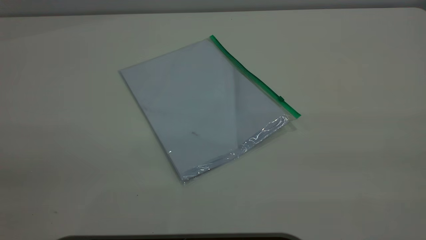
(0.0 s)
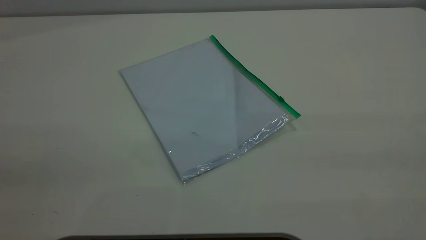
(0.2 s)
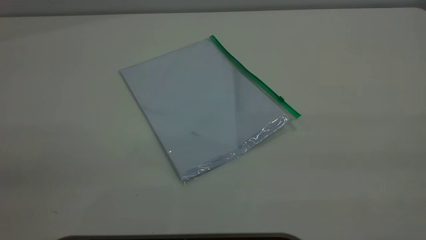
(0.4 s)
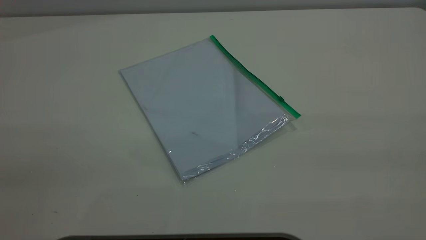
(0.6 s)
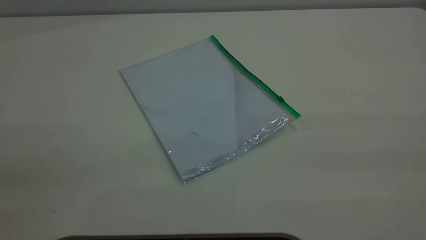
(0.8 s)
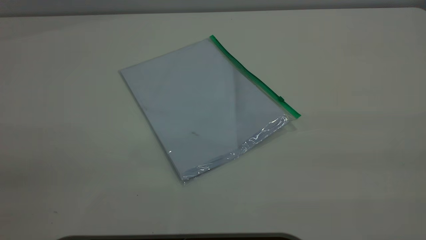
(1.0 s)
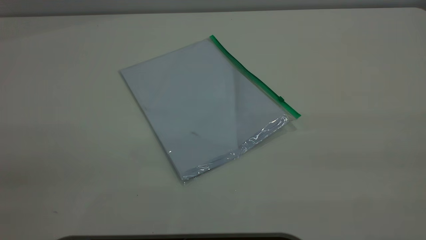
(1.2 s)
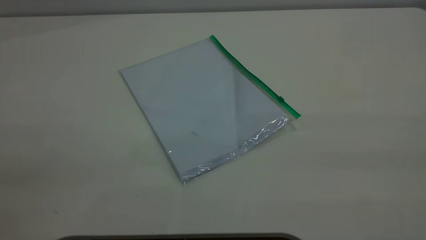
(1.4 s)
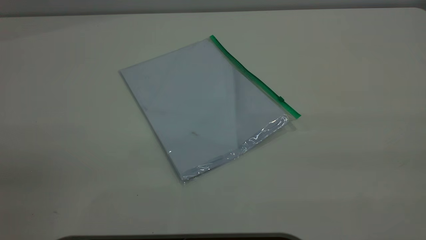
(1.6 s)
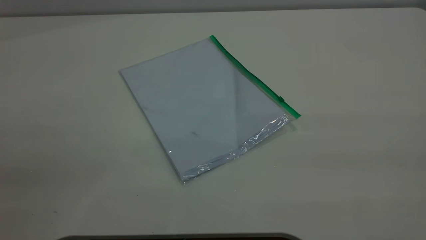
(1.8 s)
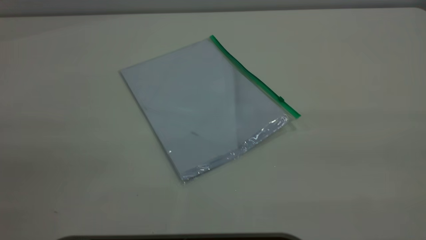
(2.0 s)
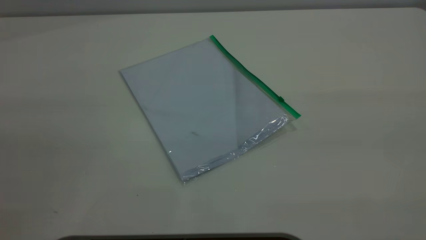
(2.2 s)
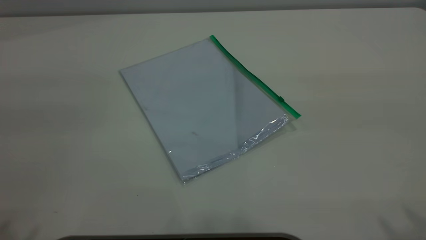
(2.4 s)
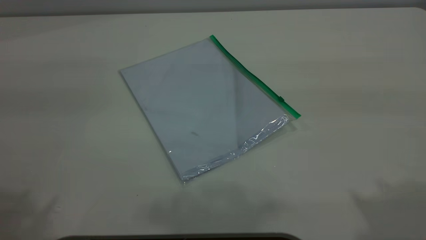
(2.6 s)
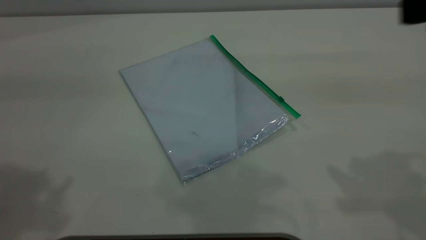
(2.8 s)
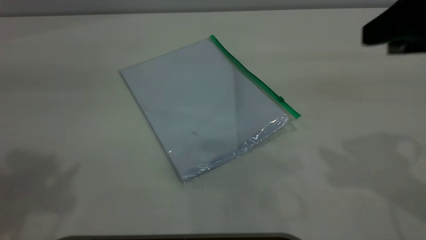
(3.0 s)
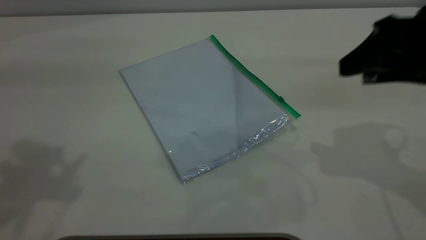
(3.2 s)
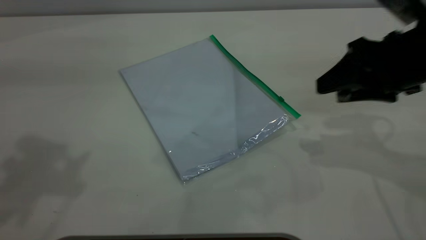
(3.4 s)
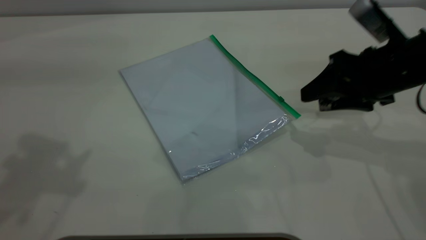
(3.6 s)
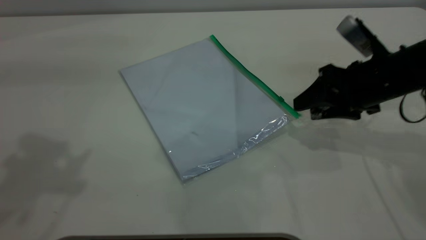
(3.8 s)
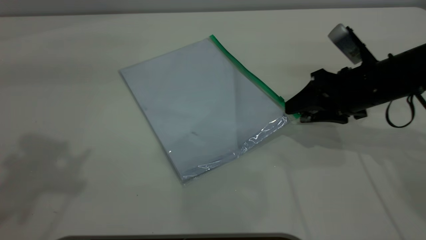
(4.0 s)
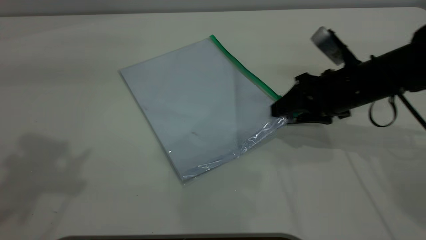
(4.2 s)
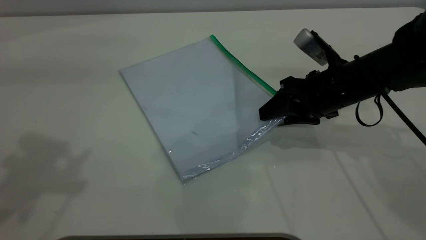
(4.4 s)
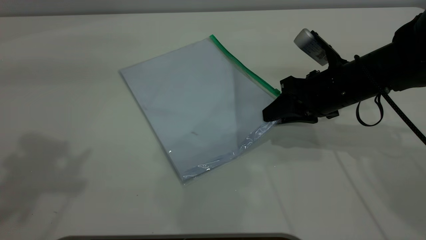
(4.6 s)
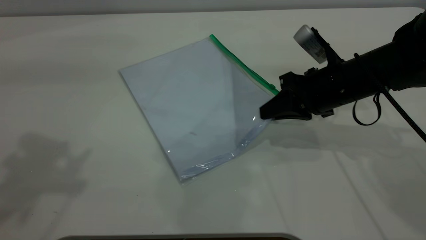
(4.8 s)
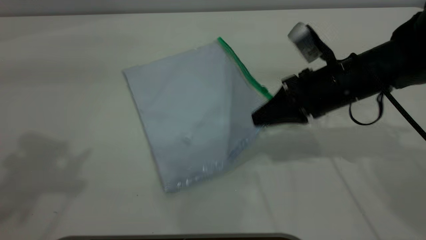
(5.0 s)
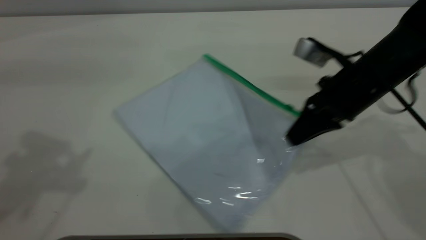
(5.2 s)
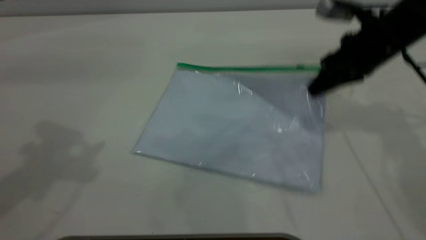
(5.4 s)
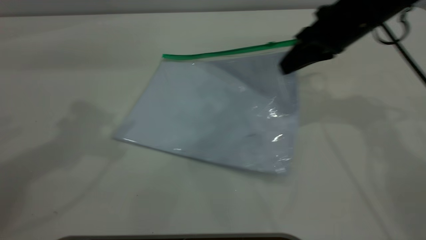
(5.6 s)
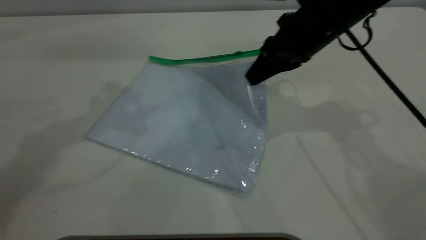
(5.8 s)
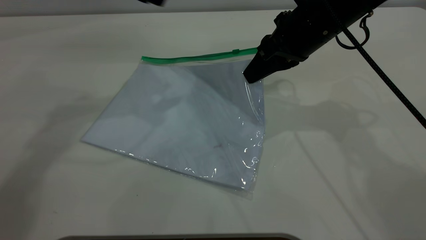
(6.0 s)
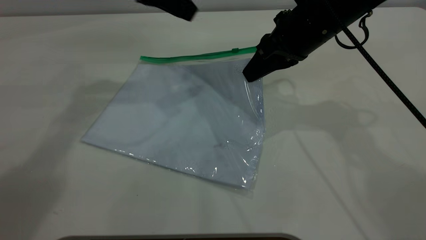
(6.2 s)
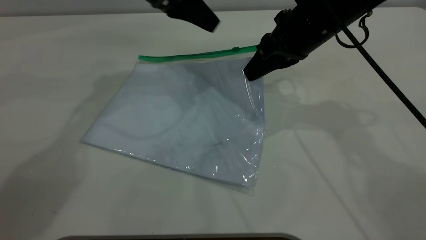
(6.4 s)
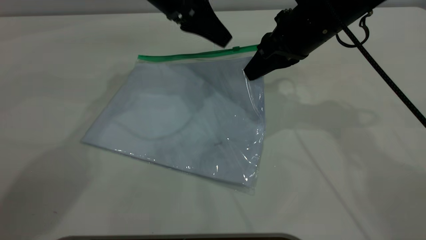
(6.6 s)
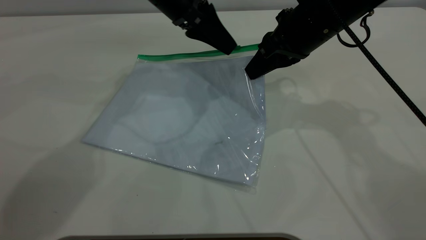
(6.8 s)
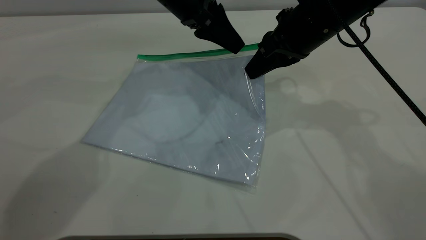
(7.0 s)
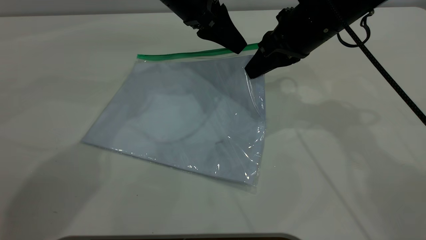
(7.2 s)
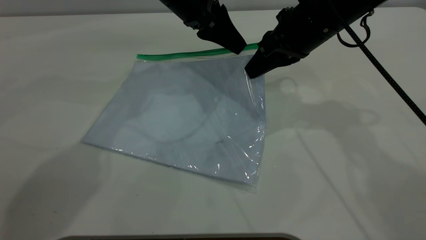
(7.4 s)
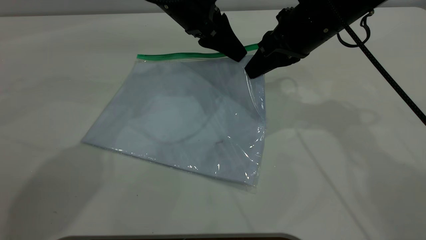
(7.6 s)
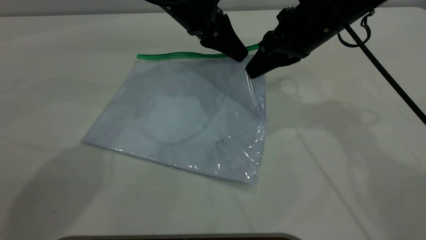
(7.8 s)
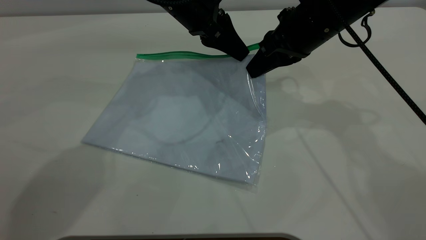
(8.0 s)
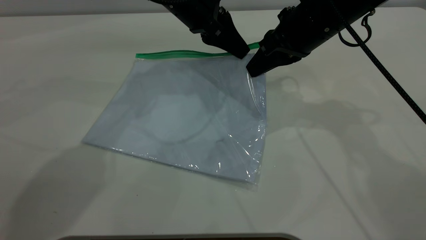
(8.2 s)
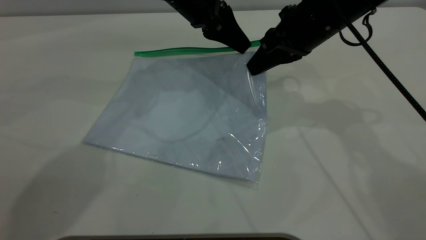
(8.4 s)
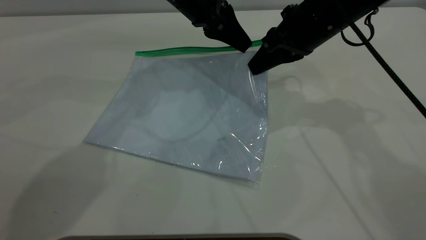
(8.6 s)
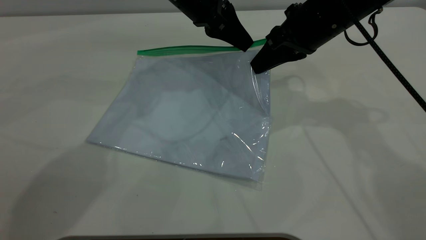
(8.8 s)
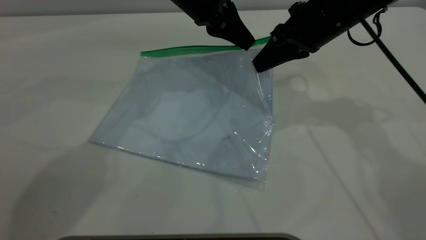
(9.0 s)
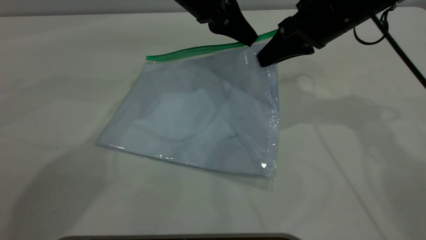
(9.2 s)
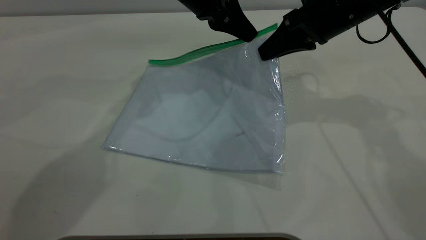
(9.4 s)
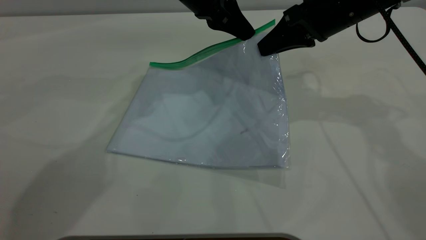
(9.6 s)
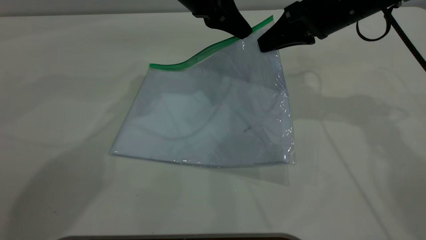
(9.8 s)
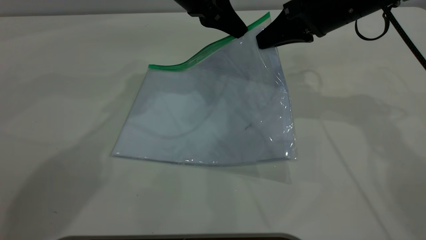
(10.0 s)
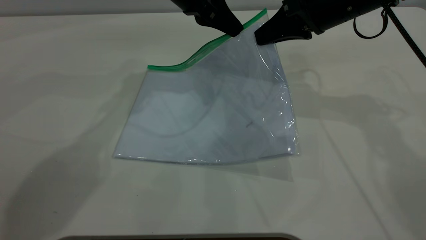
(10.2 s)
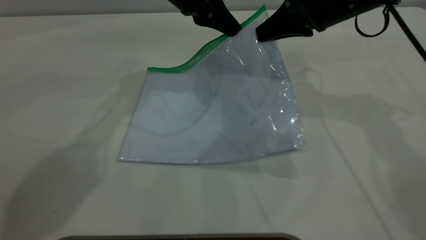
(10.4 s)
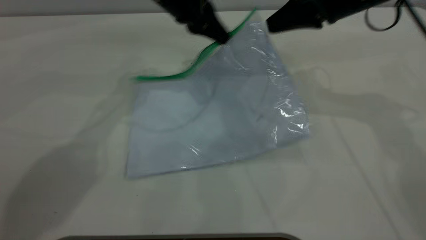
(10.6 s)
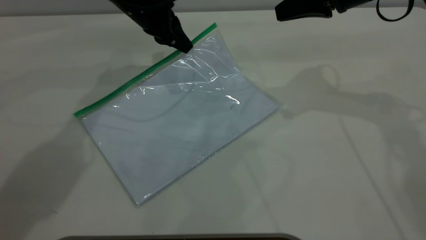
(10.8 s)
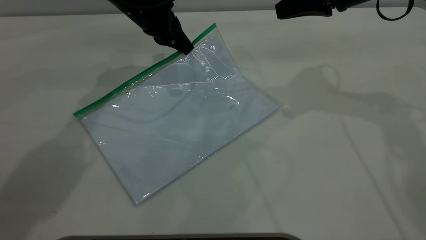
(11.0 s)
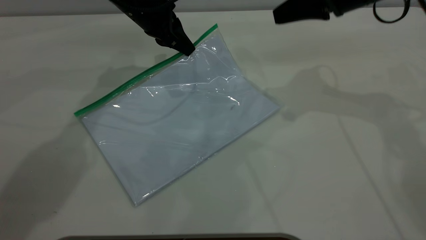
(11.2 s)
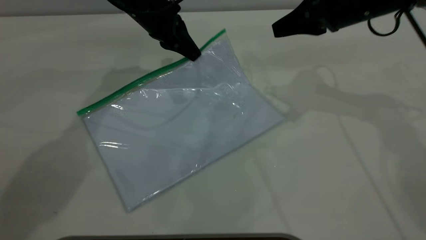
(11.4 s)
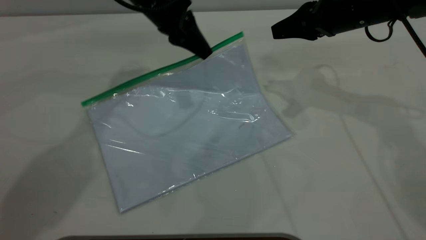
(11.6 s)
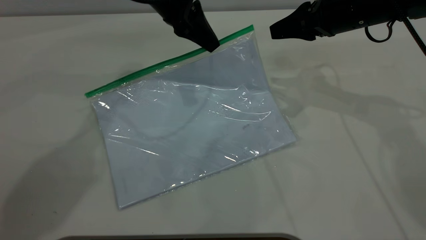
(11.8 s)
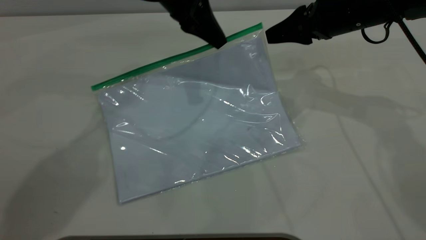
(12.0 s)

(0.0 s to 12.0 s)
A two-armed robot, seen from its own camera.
Step, 0.0 s - 4.8 s: Pick up the transparent plastic bag with the right gripper.
0.0 s - 1.6 s: The two grippers keep their place.
1.6 s - 3.0 s: The right gripper shifts some 25 cm forward and downward, and opens its fingers.
3.0 s - 4.4 s: The right gripper goes about 20 cm downward and forward.
4.4 s - 6.0 s: The left gripper is displaced forward, to the right and downward by roughly 20 cm; the right gripper heads upward and to the left, covering some 10 cm, and closes its fingers.
6.0 s - 7.6 s: The left gripper heads to the right and downward, covering approximately 15 cm.
7.6 s - 9.0 s: The left gripper closes.
9.0 s - 10.4 s: There are only small adjustments of the grippers.
10.4 s - 12.0 s: The right gripper opens its fingers.

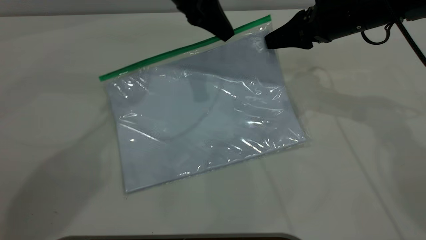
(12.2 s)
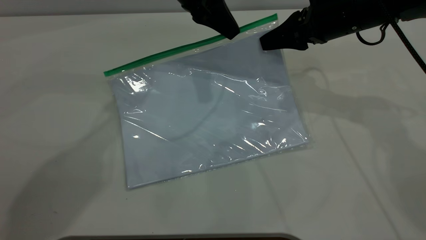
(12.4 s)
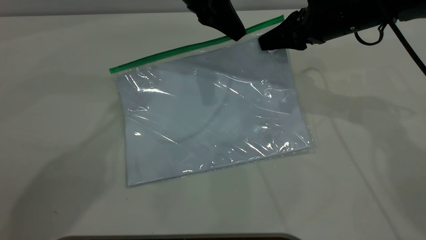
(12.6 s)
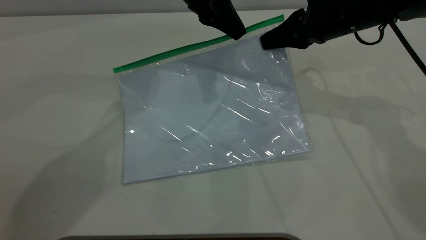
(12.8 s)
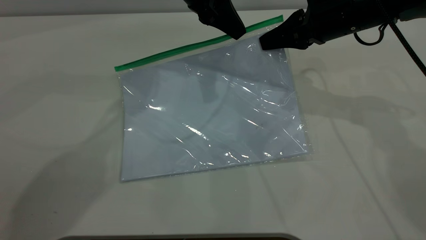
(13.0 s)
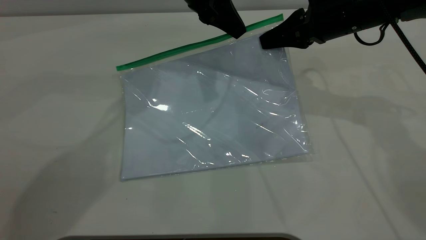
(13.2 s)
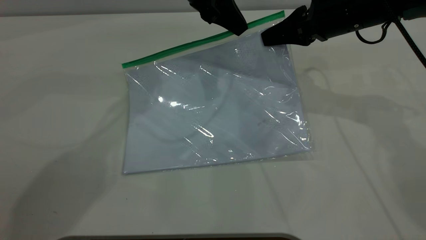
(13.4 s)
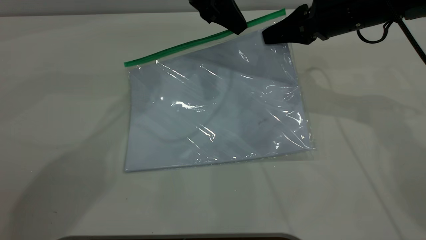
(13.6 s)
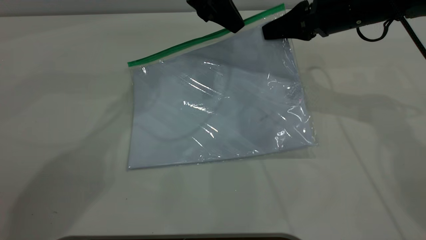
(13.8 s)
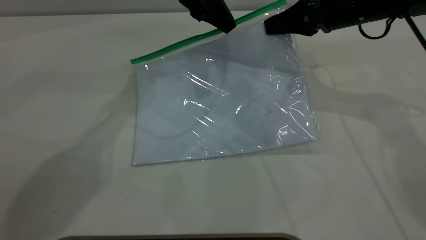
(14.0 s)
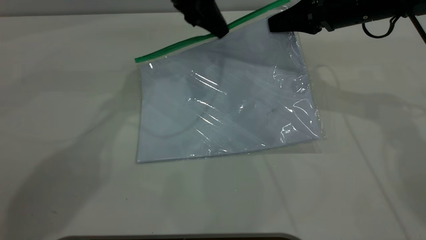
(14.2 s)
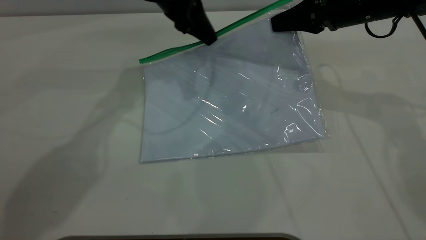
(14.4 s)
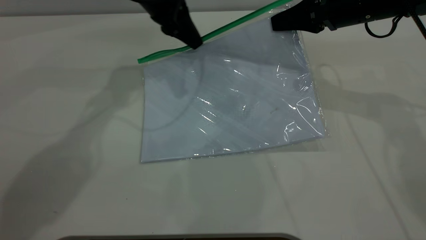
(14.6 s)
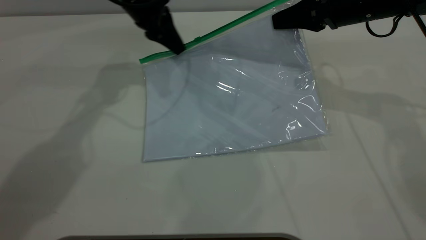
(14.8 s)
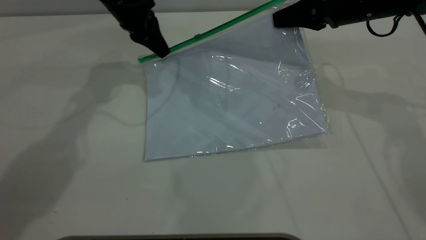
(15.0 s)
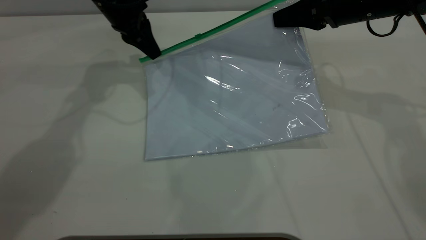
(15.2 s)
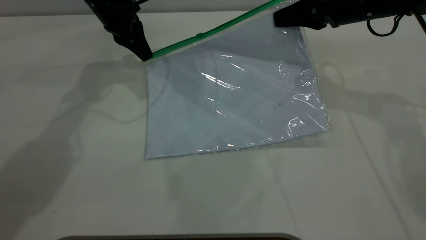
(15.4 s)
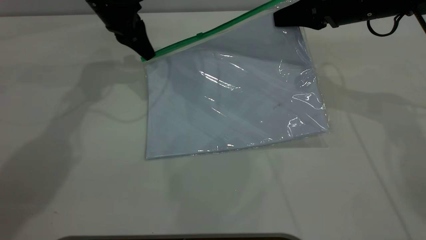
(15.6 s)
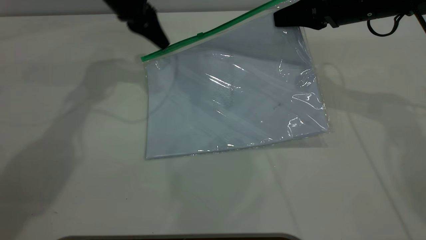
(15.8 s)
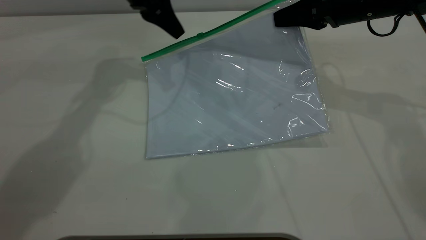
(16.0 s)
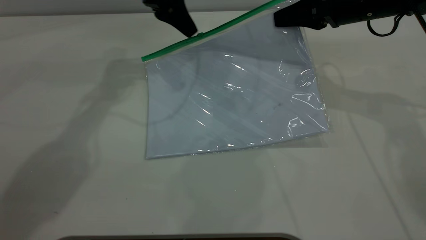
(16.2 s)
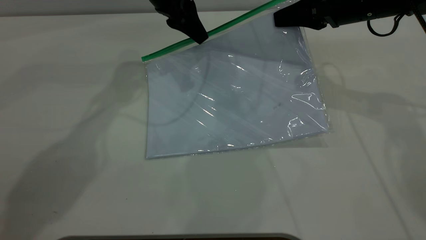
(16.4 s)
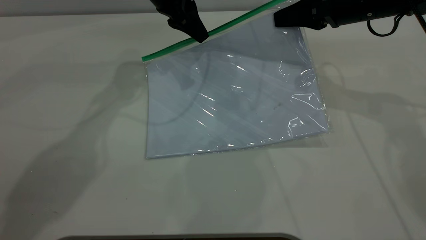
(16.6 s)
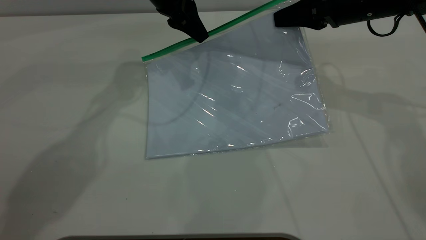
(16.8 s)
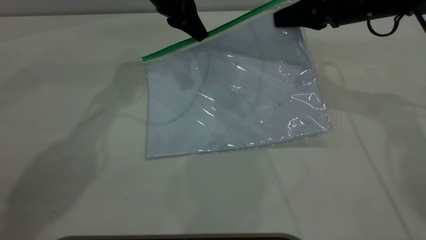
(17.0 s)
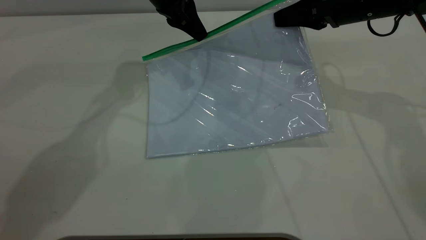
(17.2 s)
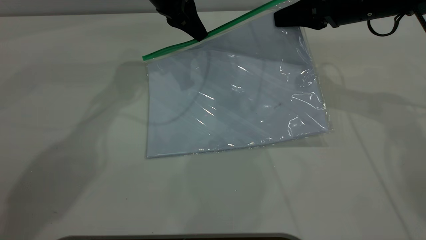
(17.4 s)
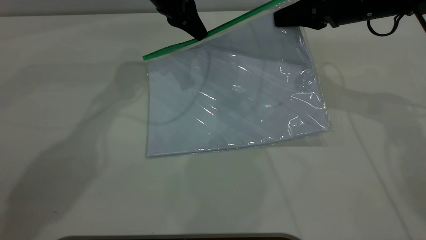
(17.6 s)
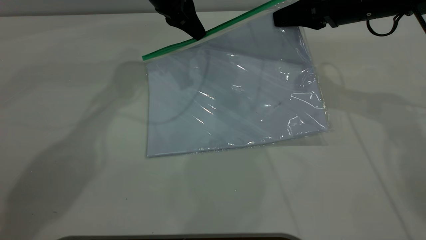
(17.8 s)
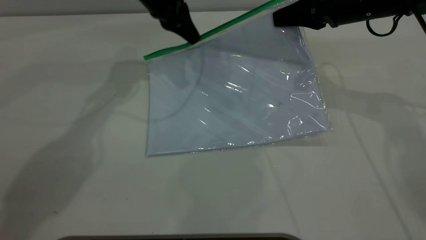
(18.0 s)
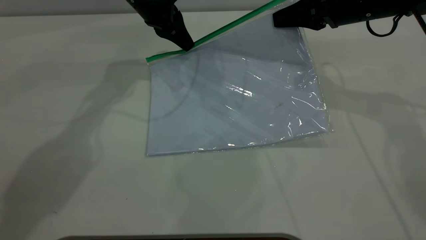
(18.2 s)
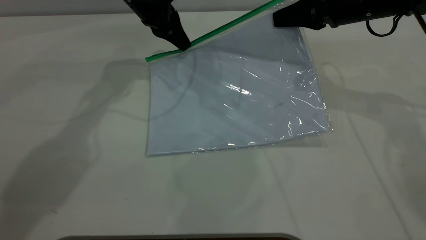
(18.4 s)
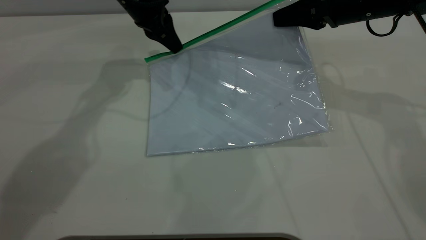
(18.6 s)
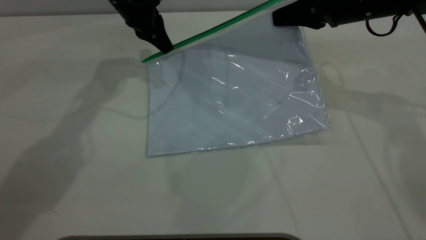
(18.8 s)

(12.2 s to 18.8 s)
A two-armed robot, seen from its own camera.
12.2 s - 13.8 s: The right gripper closes.
13.8 s - 15.4 s: The left gripper is displaced to the left and downward by approximately 15 cm.
15.4 s - 17.2 s: The left gripper goes approximately 10 cm to the right, and opens, then closes once more.
17.2 s - 18.8 s: The left gripper heads to the left, covering some 5 cm.
